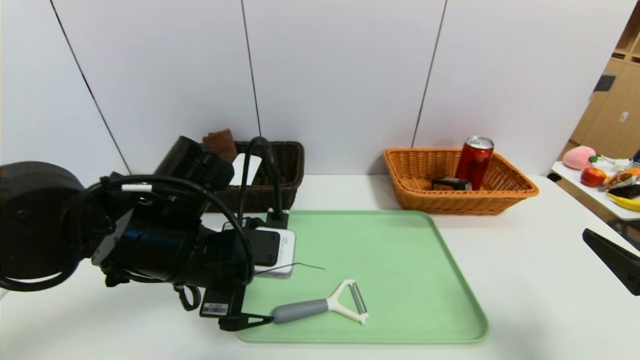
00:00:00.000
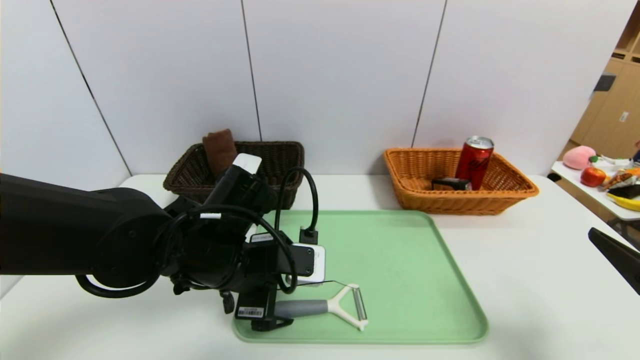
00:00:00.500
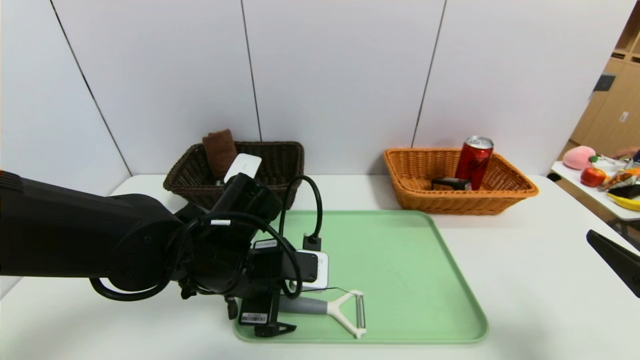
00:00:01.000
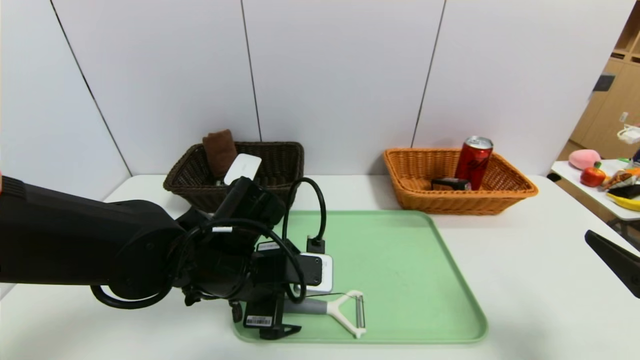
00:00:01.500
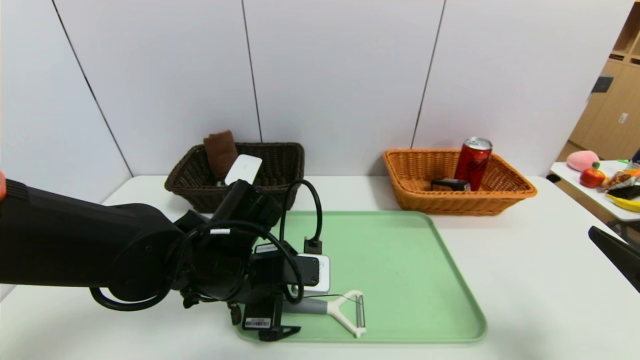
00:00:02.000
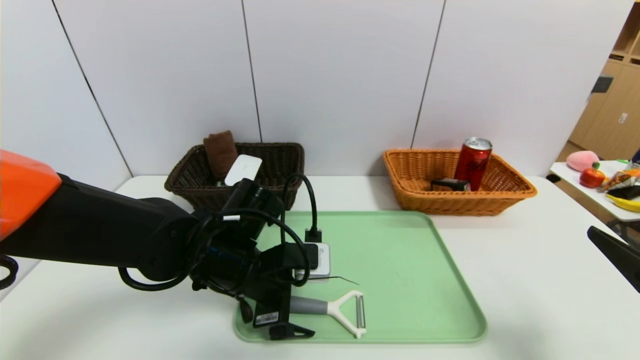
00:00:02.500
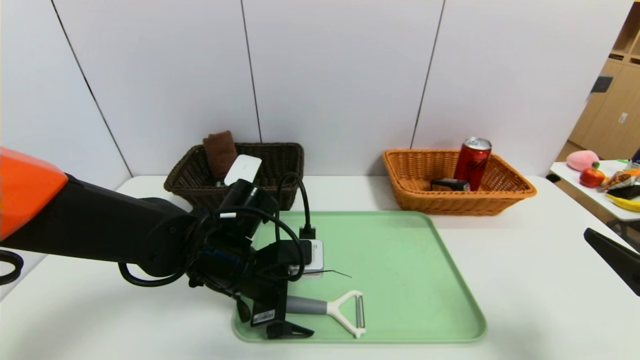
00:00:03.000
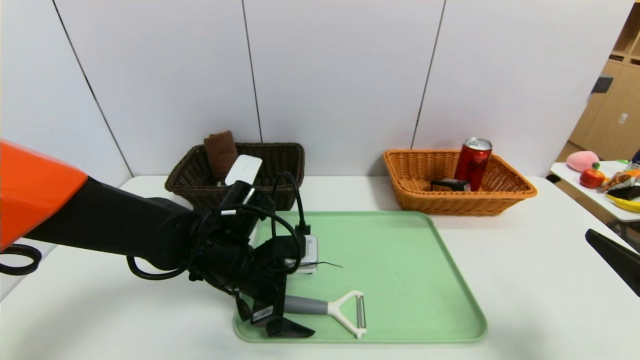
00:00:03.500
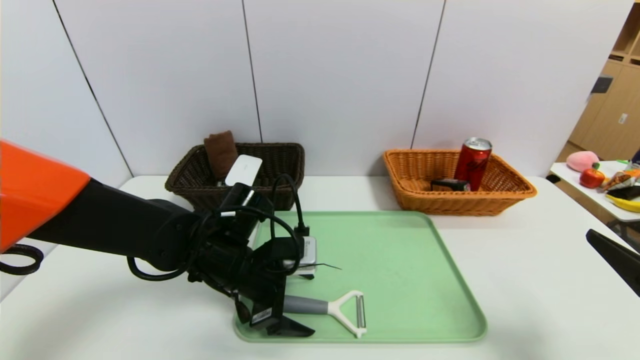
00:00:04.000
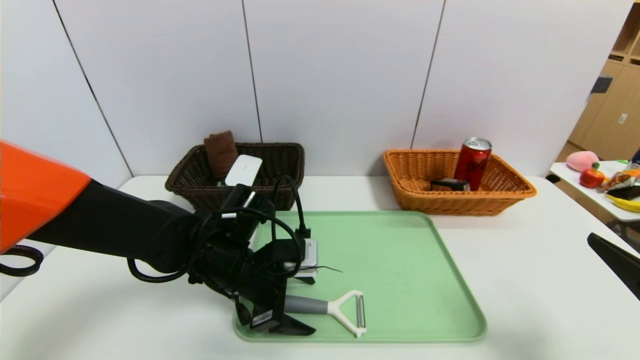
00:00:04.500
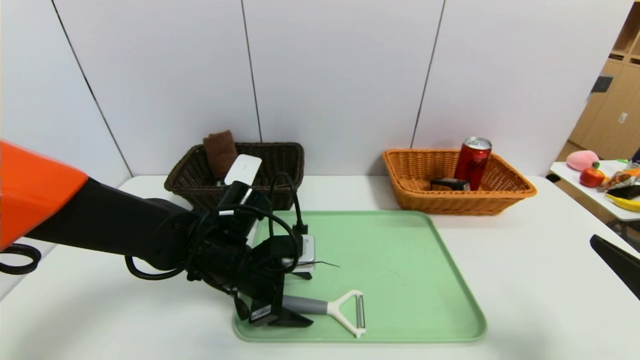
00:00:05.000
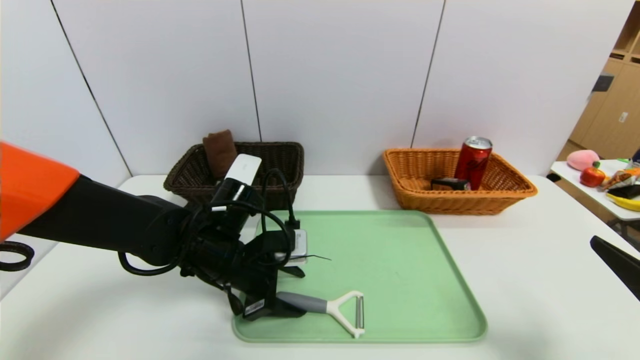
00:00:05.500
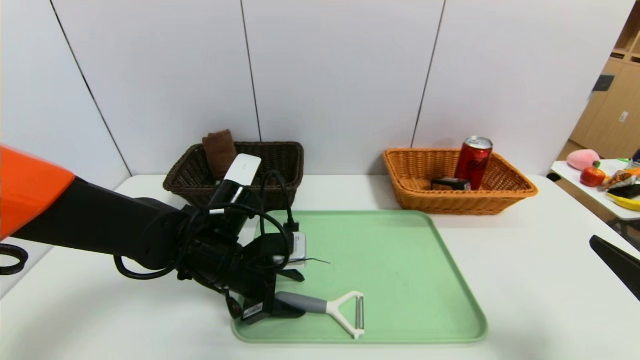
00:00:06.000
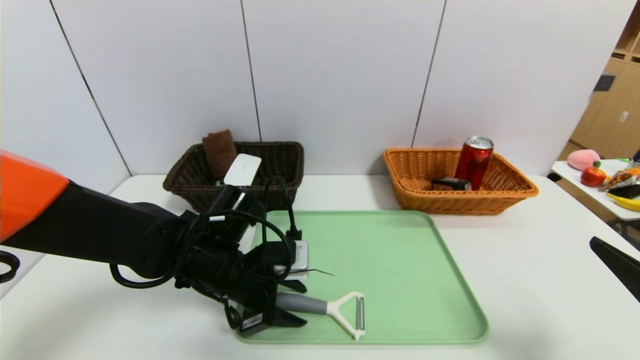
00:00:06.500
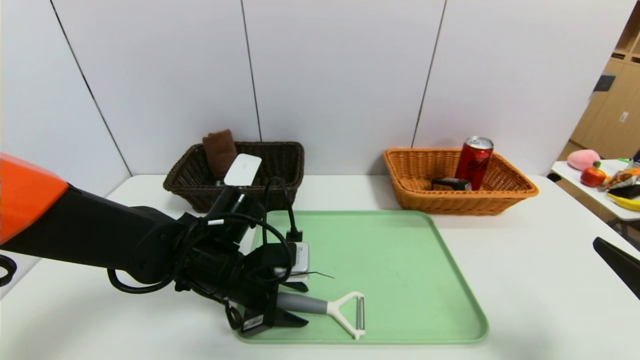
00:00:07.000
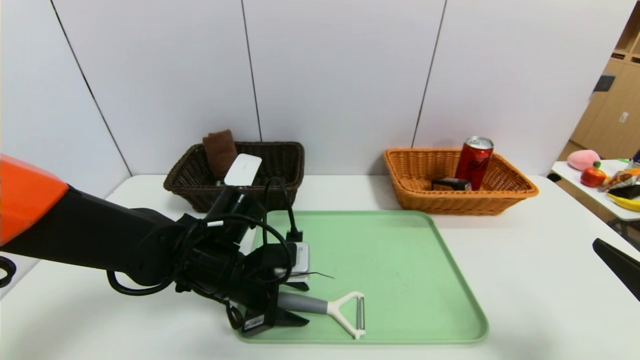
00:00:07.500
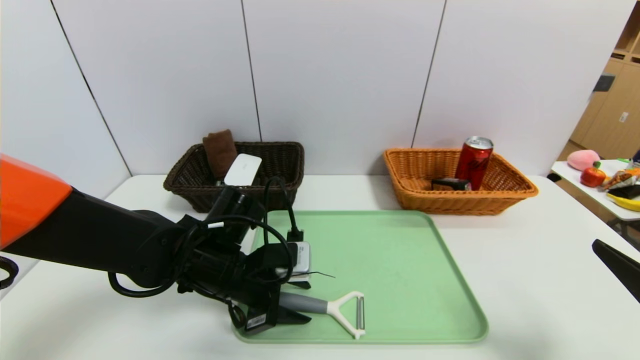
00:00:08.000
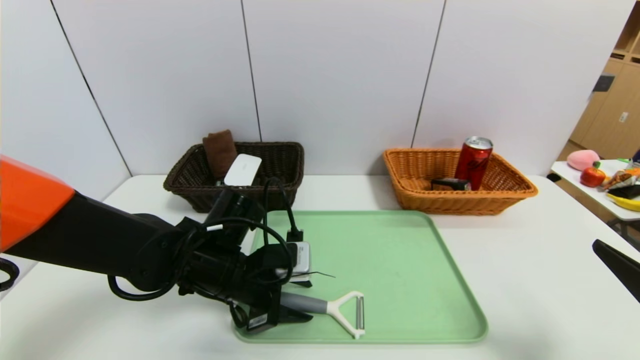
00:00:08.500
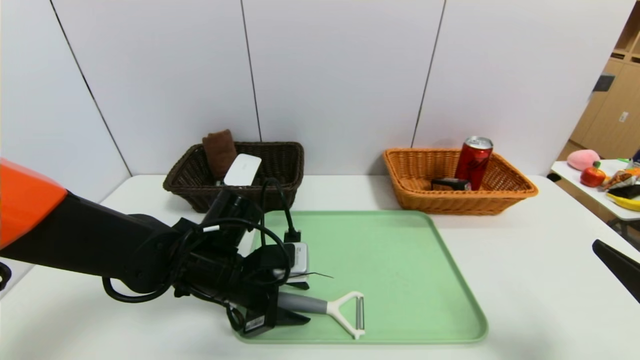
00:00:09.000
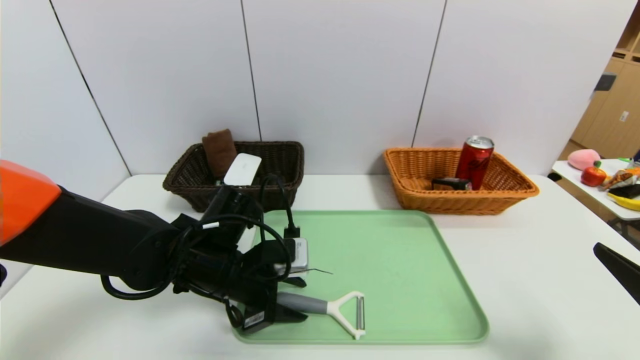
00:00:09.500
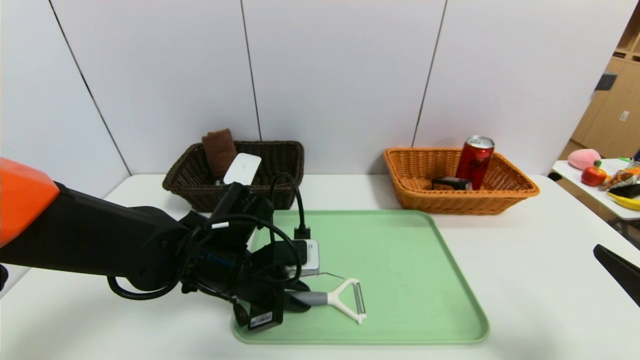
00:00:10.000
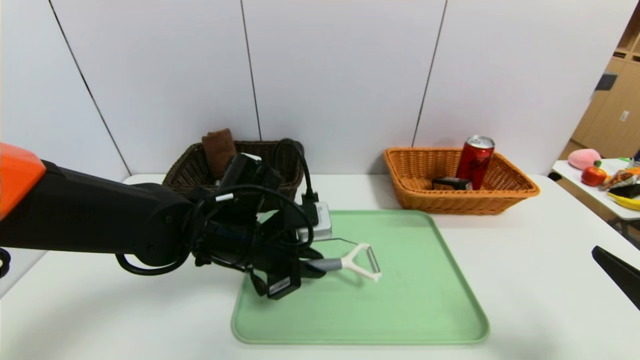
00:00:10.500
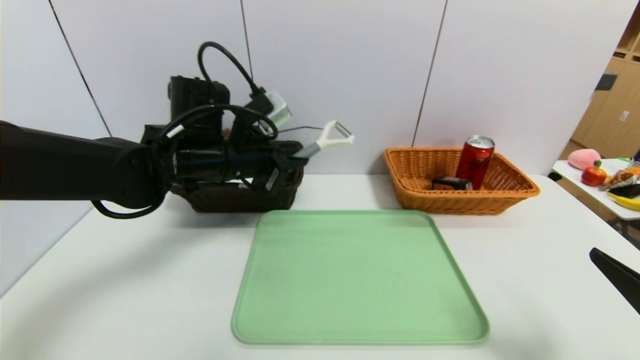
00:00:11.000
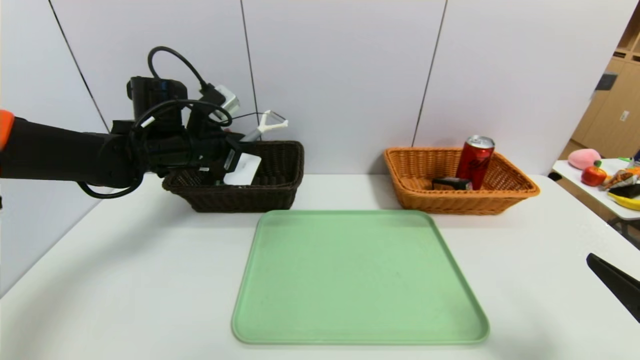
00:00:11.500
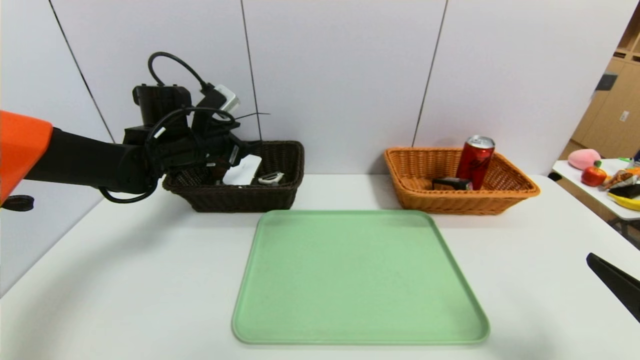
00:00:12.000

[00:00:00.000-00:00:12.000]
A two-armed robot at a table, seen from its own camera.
Task of the whole recording: place the food in the right basket with the right gripper, and place the non food items in the left basket with the left gripper.
Step, 00:00:00.000 to 00:00:11.500: Grasp the peeler and put it in the left basket.
00:00:00.000 to 00:00:02.000: The left gripper moves downward, some 10 cm.
00:00:02.000 to 00:00:04.000: The left gripper changes place by some 5 cm.
00:00:04.000 to 00:00:06.000: The left gripper closes its fingers.
00:00:06.000 to 00:00:08.000: The two grippers keep their place.
00:00:08.000 to 00:00:10.000: The left gripper closes.
00:00:10.000 to 00:00:12.000: The left gripper moves forward, to the left and upward, about 20 cm, and opens up.

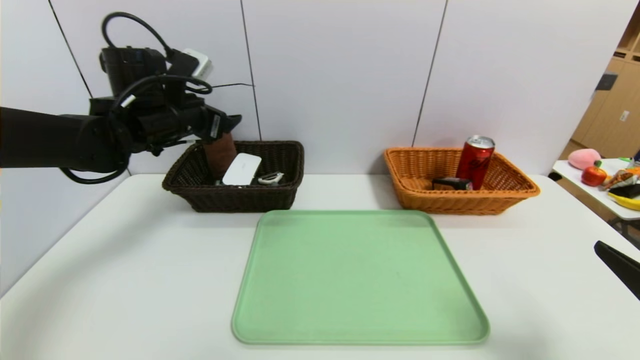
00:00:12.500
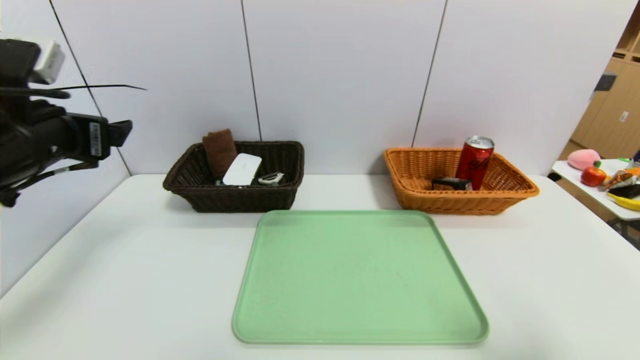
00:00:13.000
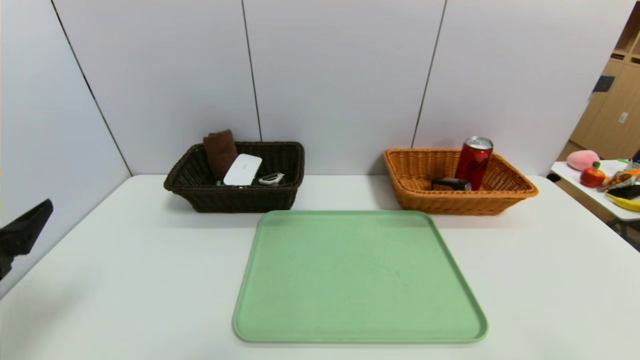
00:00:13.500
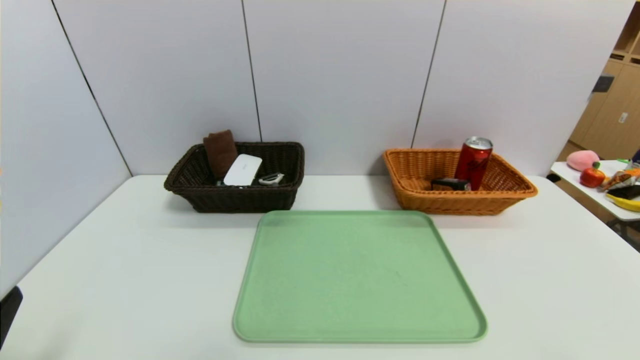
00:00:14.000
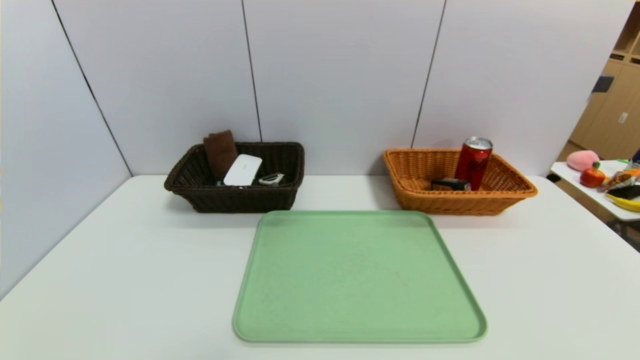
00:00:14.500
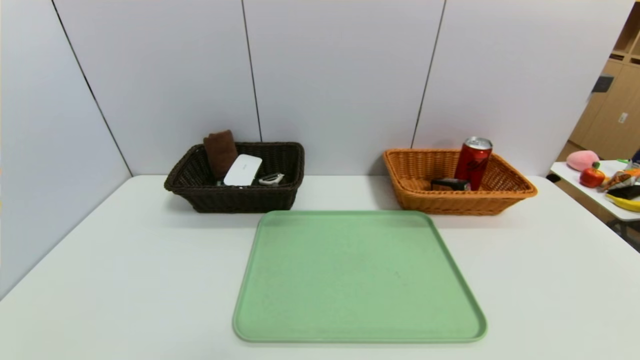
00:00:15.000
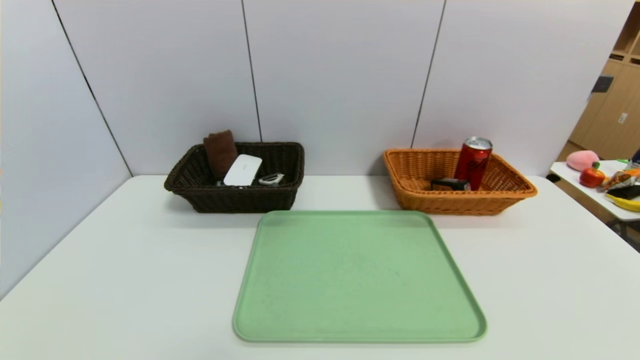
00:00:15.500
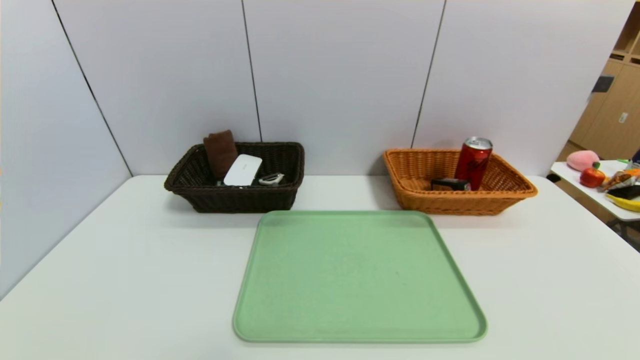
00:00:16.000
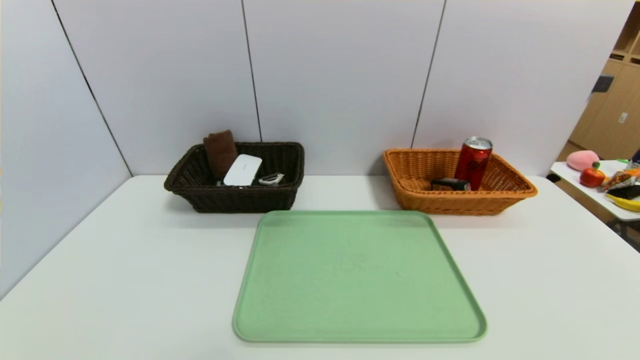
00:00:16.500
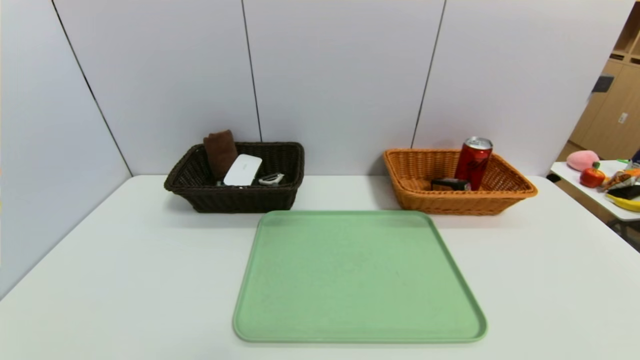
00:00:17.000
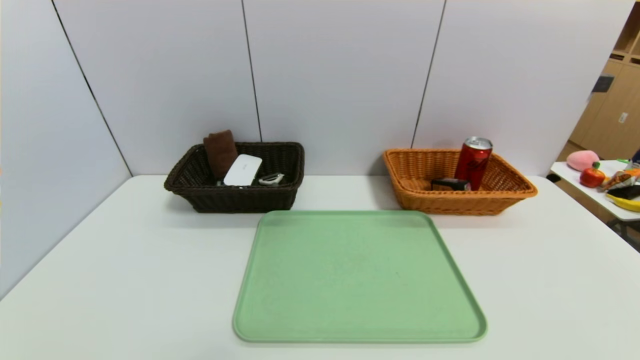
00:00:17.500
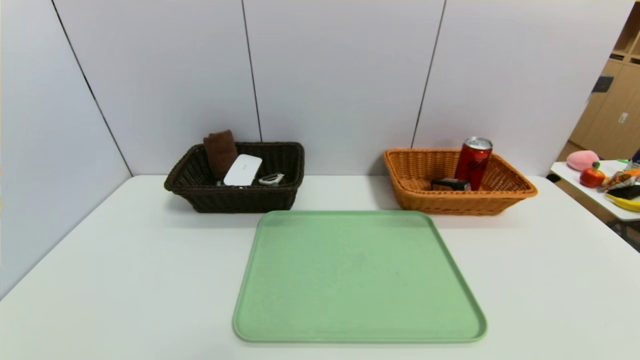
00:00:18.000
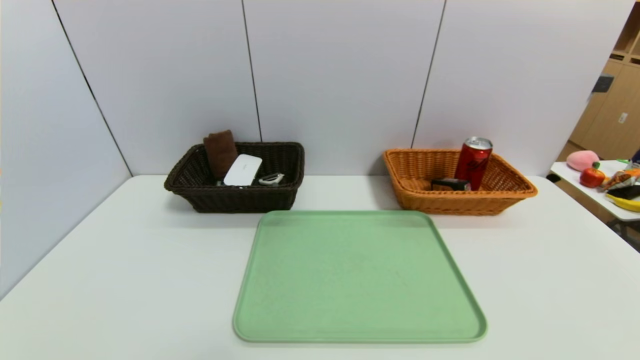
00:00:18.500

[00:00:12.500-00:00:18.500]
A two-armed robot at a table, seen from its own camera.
Task of the whole recording: place the food in the right basket with the right gripper, and place the non food items in the left basket with the left gripper.
00:00:12.500 to 00:00:14.500: The left gripper is displaced backward by about 40 cm. The right gripper goes approximately 10 cm backward.
